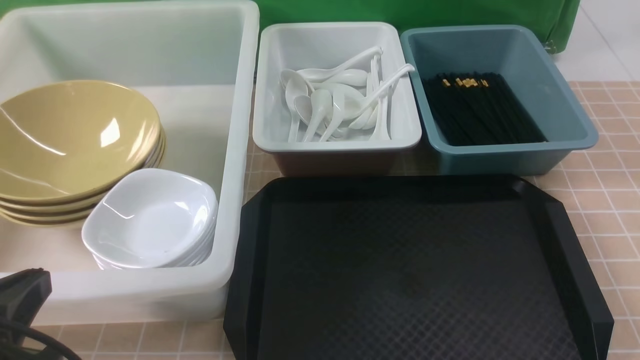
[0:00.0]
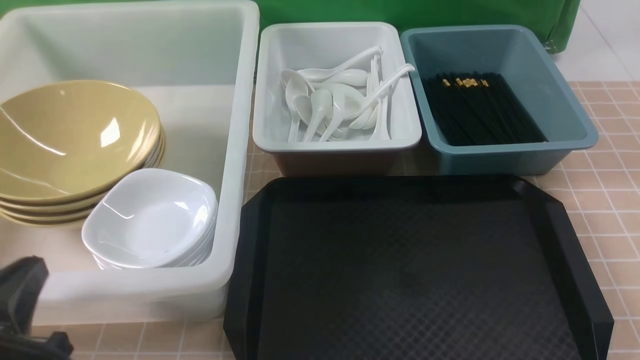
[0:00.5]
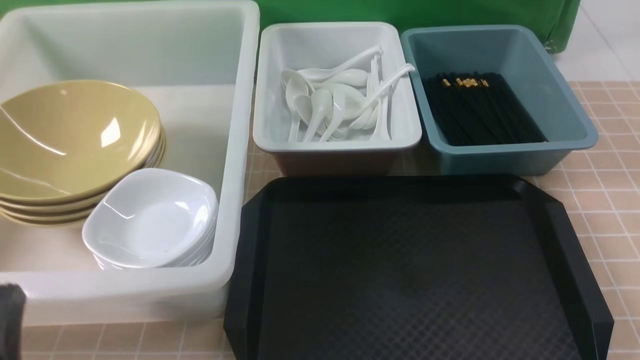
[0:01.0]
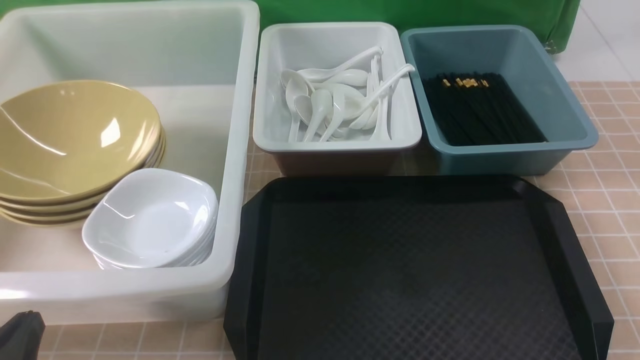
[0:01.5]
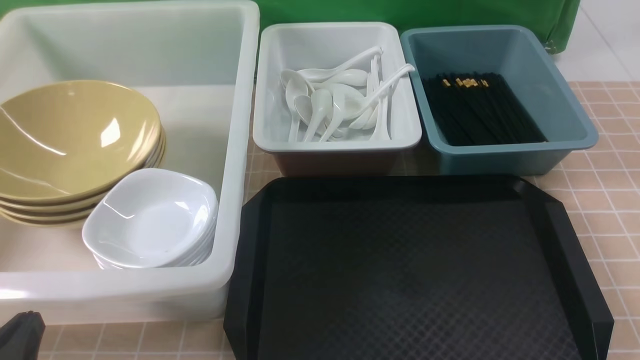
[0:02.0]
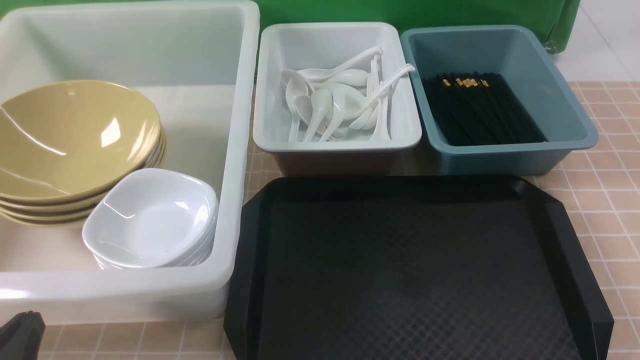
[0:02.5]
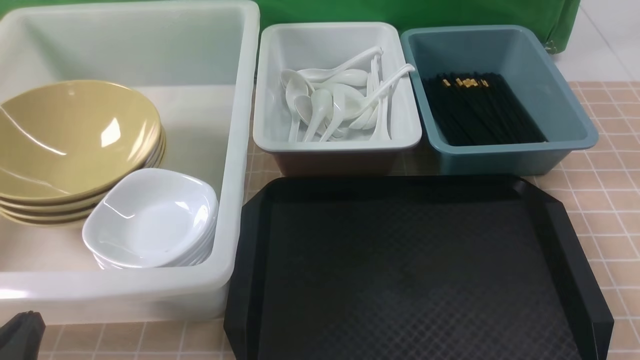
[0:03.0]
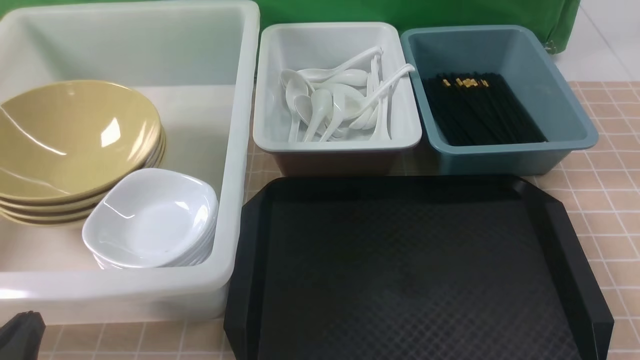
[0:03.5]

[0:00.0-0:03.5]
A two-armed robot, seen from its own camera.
Task of the whole recording: on brown table put chopsticks spoon bowls plates into blue grey white boxes.
0:00.0 to 0:02.0: The left gripper heads downward, covering about 10 cm.
0:02.0 to 0:03.5: Both grippers stay put.
